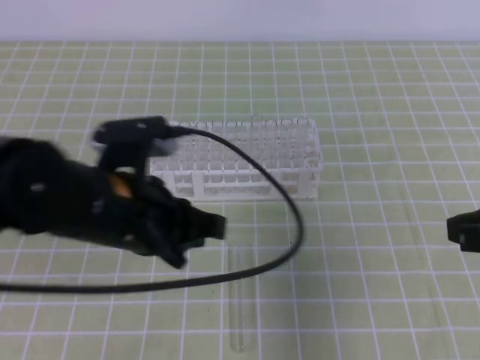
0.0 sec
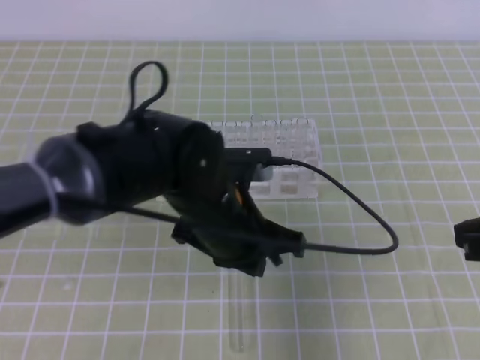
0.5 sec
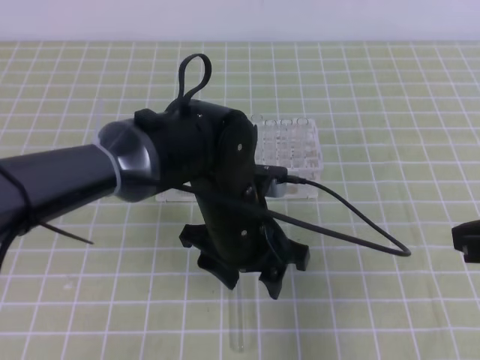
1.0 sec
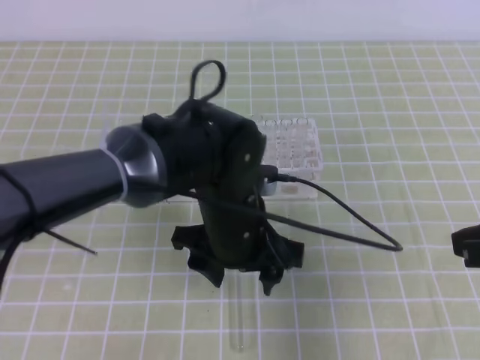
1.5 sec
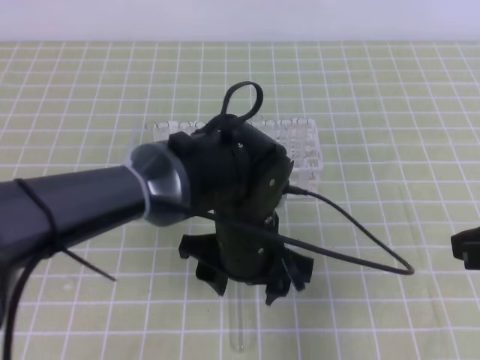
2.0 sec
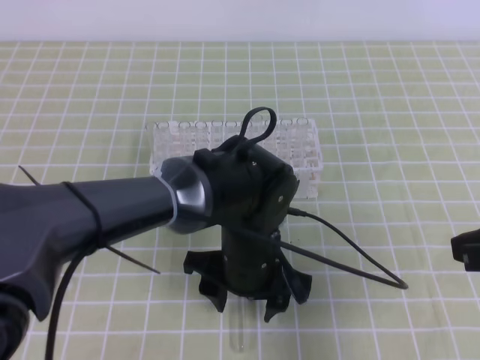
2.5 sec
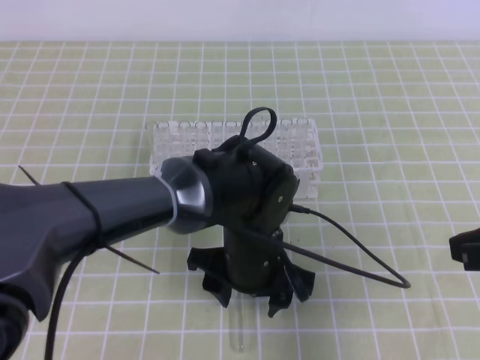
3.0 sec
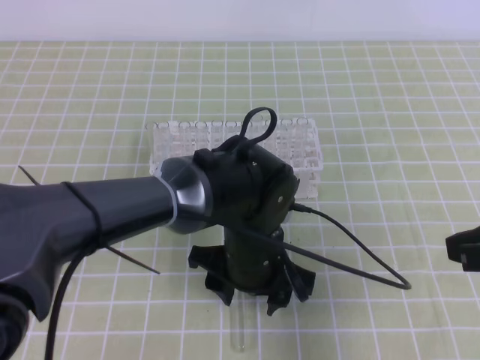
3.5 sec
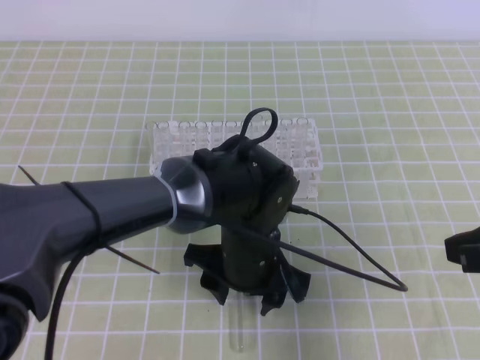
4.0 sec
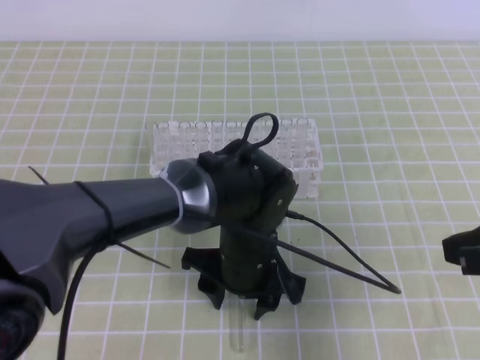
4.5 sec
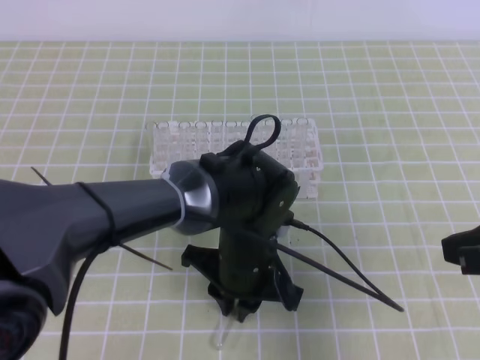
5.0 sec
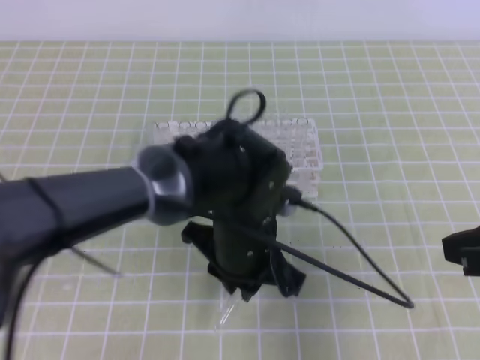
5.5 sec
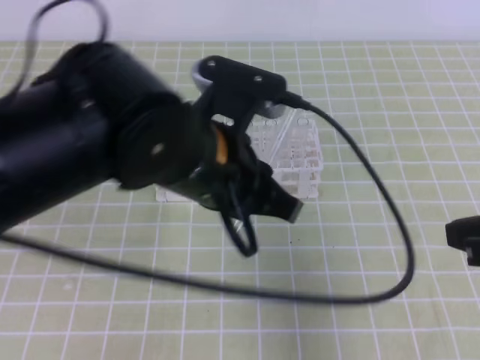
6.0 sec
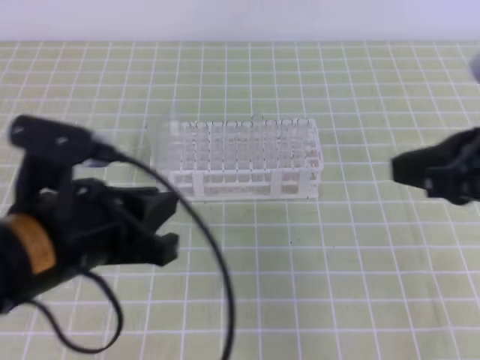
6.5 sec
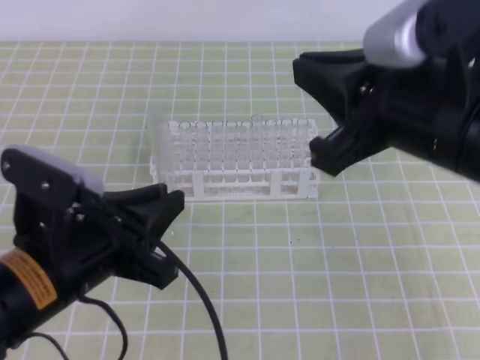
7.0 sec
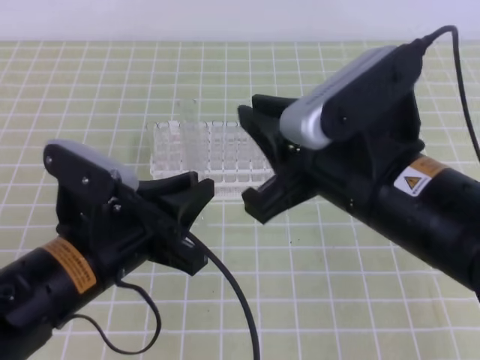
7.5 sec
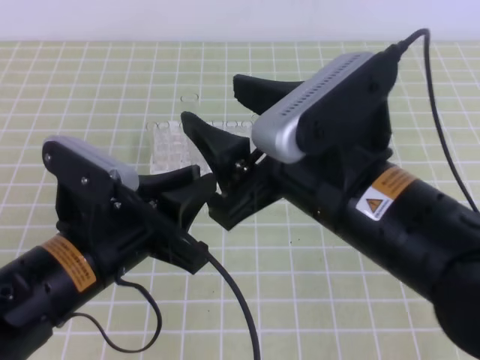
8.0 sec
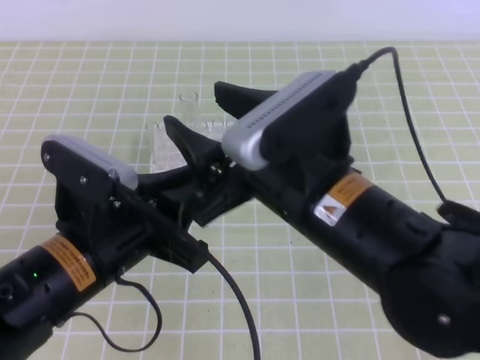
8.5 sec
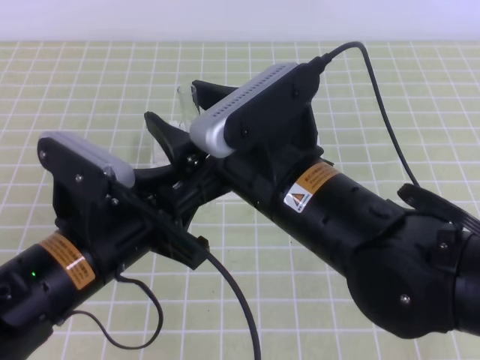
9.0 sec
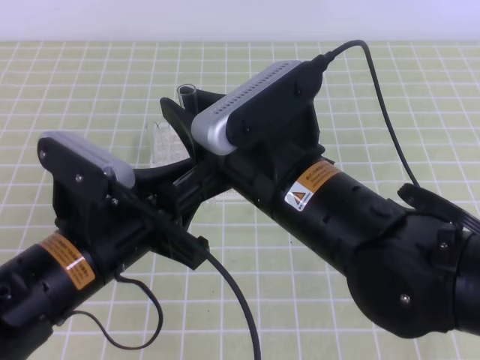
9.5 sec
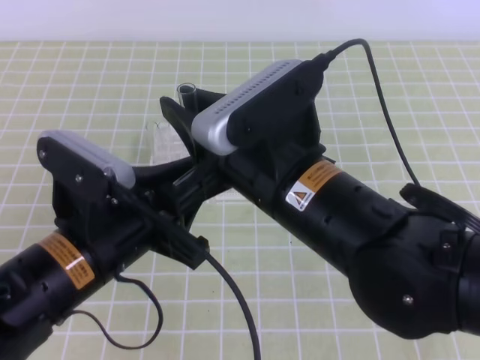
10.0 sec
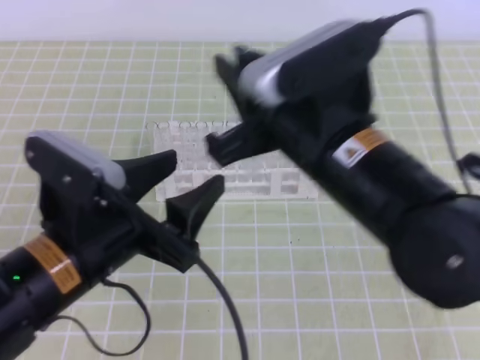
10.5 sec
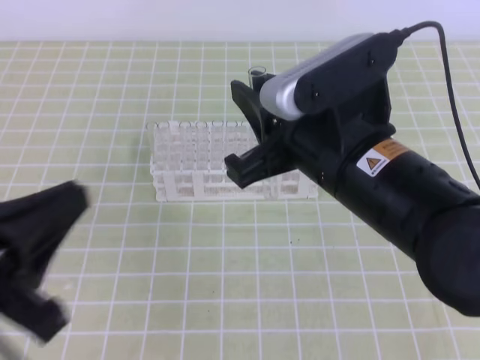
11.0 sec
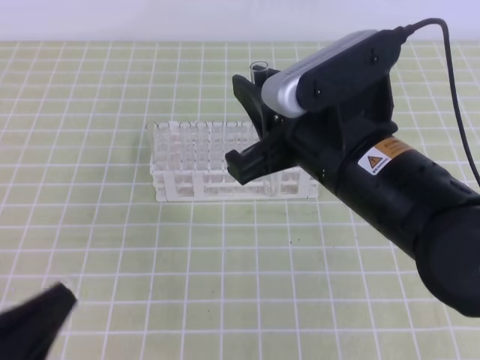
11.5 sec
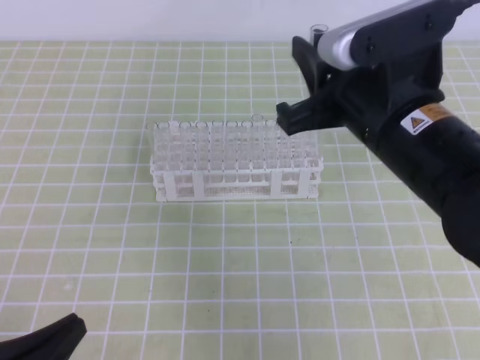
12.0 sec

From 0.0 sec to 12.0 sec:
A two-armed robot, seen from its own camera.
From 0.0 sec to 2.0 sec: The left gripper heads to the right and downward, covering approximately 15 cm, and opens up.
From 2.0 sec to 4.0 sec: The grippers move only a little.
From 4.0 sec to 6.0 sec: The left gripper is displaced upward by about 15 cm, and closes.
From 6.0 sec to 8.0 sec: The left gripper shifts about 10 cm to the left and downward; the right gripper heads to the left, covering about 15 cm, and opens up.
From 8.0 sec to 10.0 sec: The right gripper closes its fingers.
From 10.0 sec to 12.0 sec: The right gripper is displaced to the right by some 10 cm. Meanwhile the left gripper goes roughly 20 cm backward, to the left and downward, and closes its fingers.

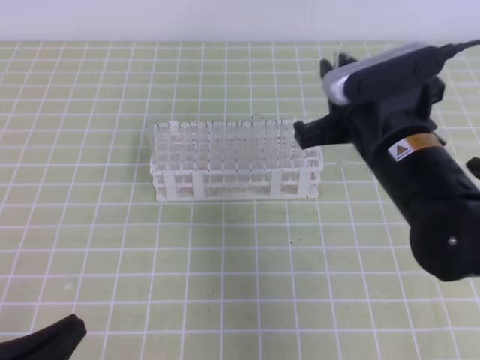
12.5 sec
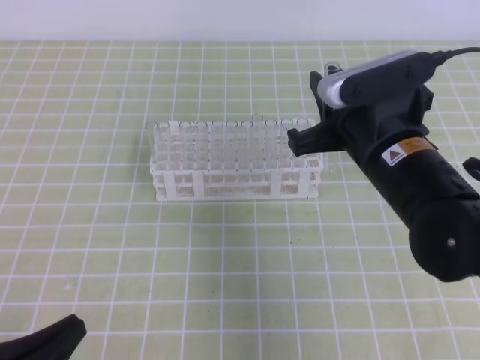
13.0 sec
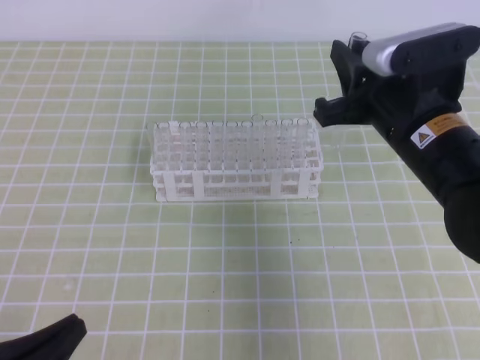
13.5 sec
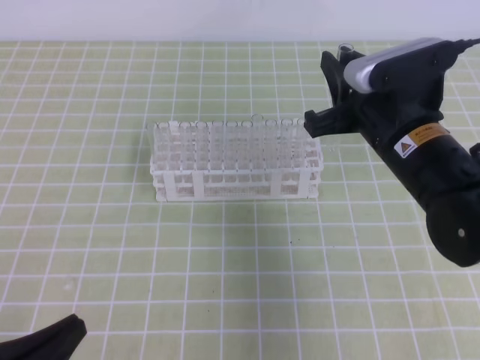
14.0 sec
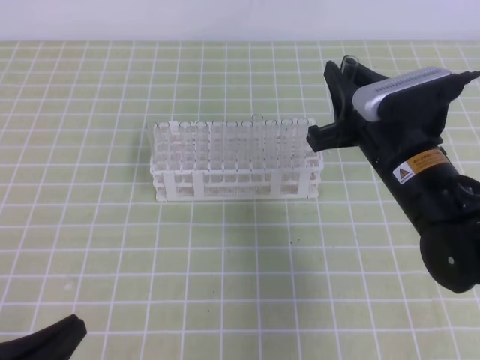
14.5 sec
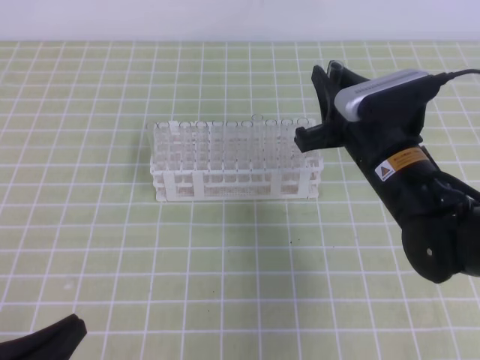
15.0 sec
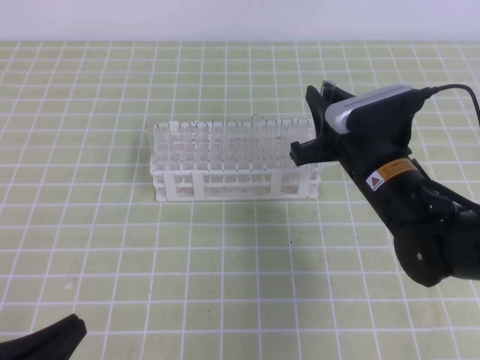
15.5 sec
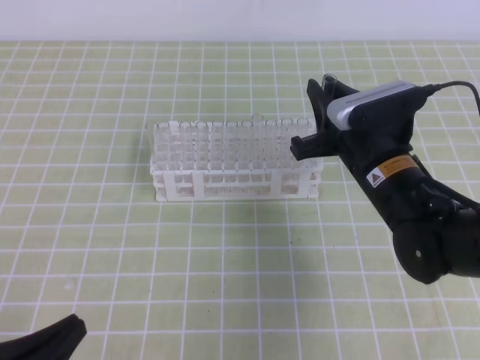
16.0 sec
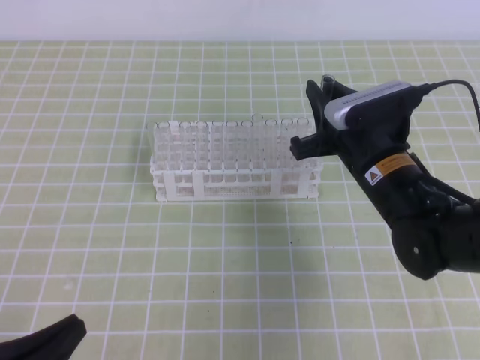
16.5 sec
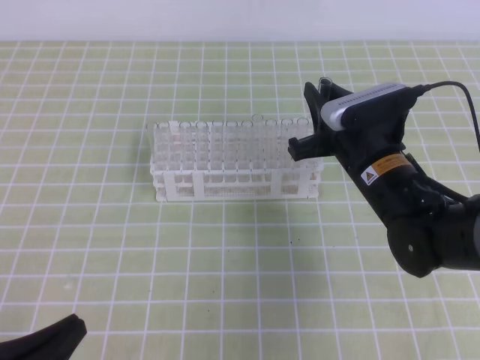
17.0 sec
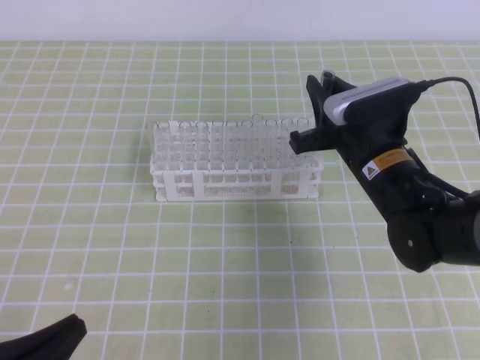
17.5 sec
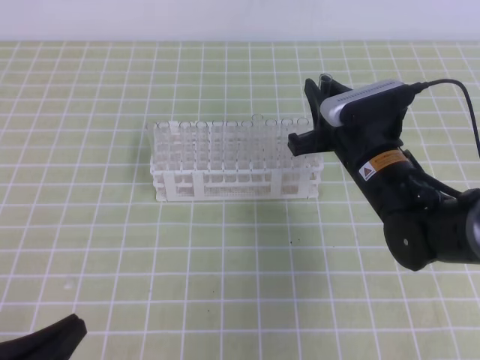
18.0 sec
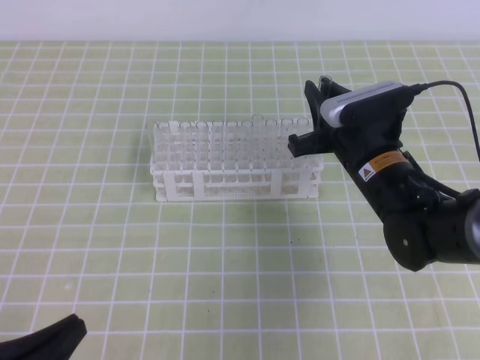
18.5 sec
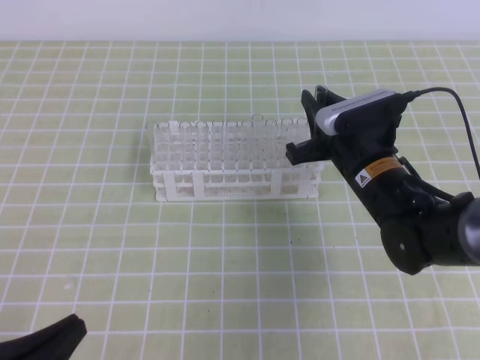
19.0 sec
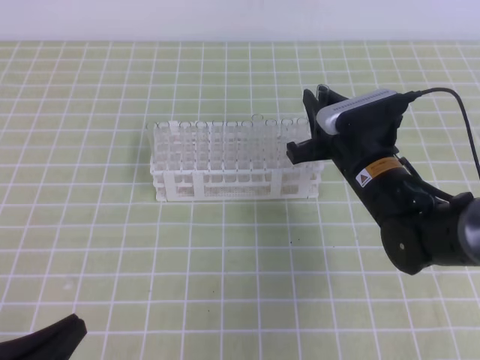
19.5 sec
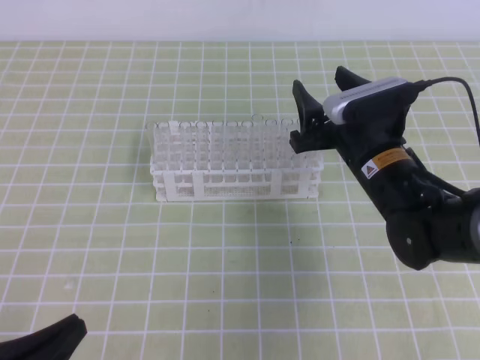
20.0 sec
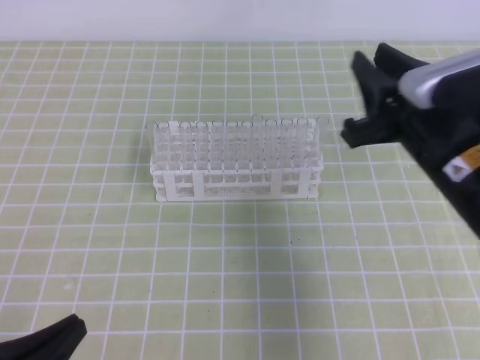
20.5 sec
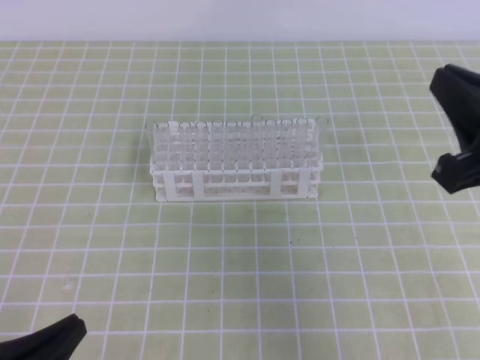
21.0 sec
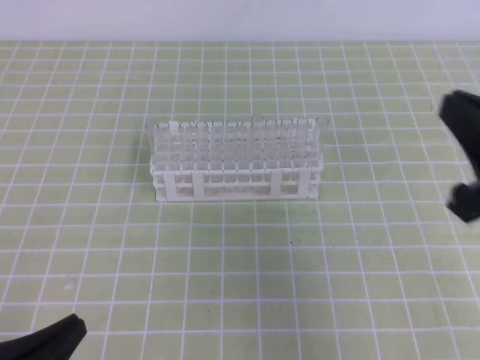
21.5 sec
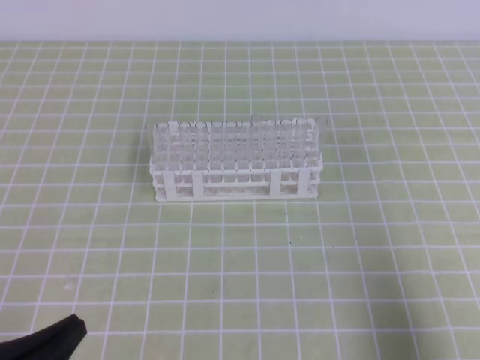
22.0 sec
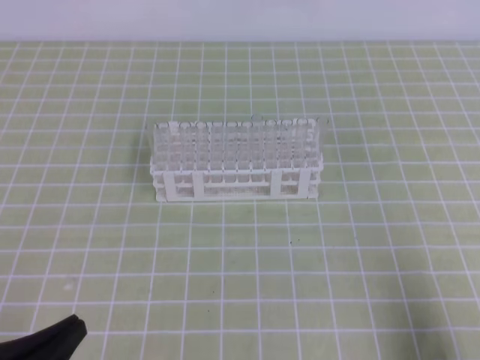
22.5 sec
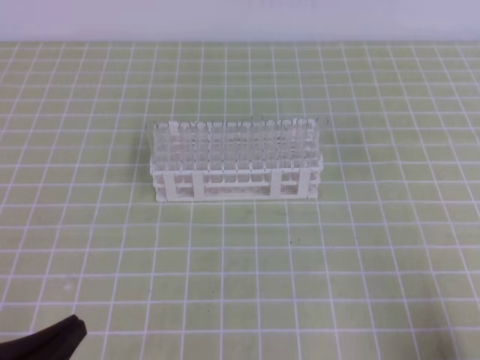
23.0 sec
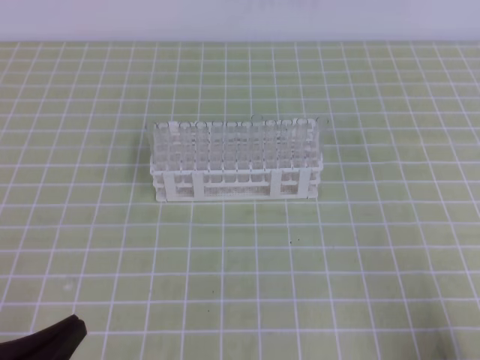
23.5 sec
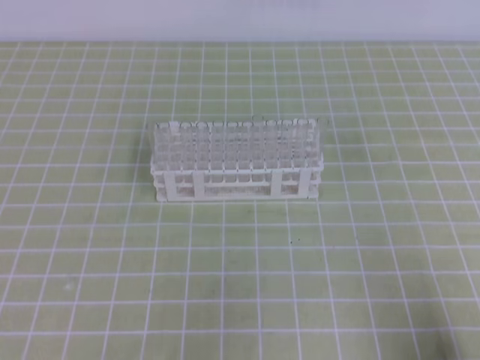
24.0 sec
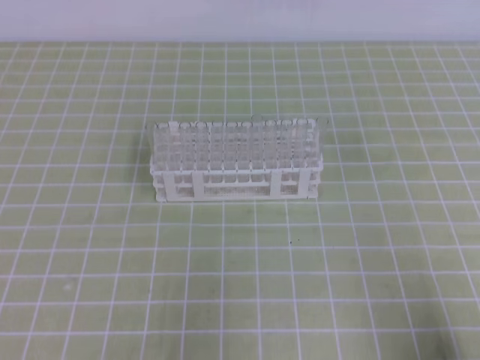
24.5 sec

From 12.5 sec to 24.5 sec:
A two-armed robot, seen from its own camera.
From 12.5 sec to 14.5 sec: The right gripper shifts by approximately 5 cm.
From 14.5 sec to 16.5 sec: The grippers make only small movements.
From 16.5 sec to 18.5 sec: The grippers make only small movements.
From 18.5 sec to 20.5 sec: The right gripper moves upward and backward, roughly 10 cm, and opens, then closes once more.
From 20.5 sec to 22.5 sec: The right gripper travels backward, to the right and downward by approximately 25 cm, and closes.

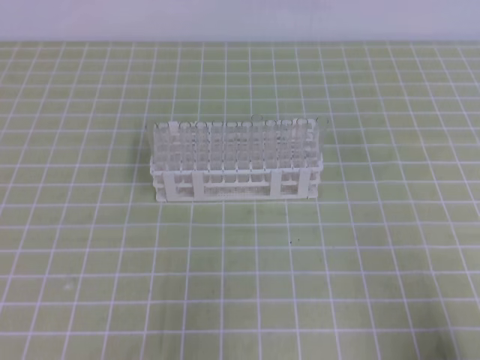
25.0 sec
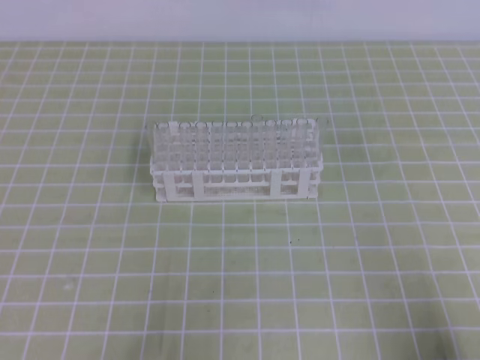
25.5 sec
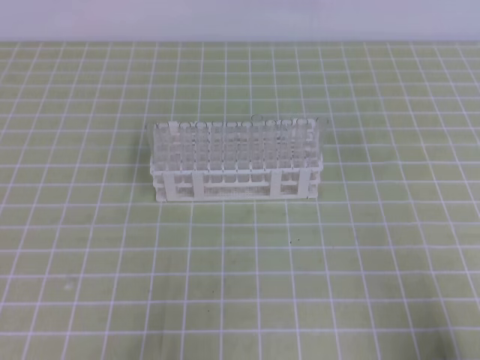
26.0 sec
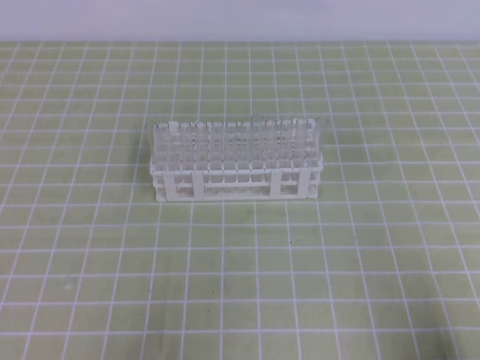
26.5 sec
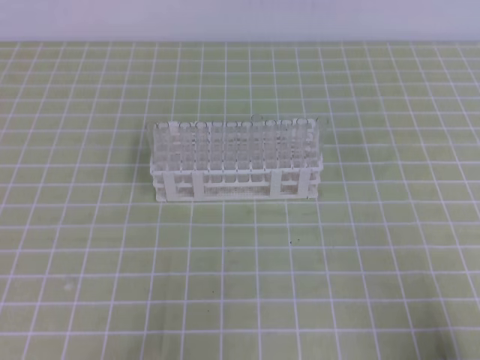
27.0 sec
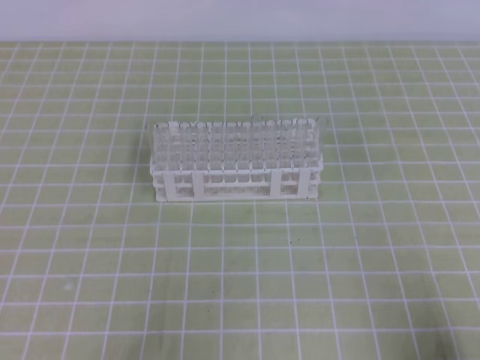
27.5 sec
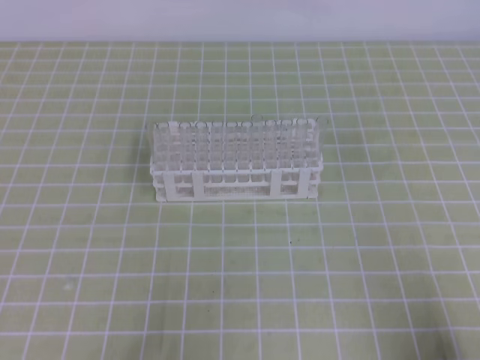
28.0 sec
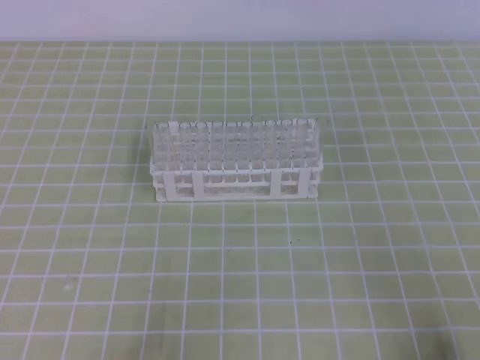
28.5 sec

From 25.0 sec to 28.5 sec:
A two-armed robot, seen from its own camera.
From 27.0 sec to 28.5 sec: Both grippers stay put.
